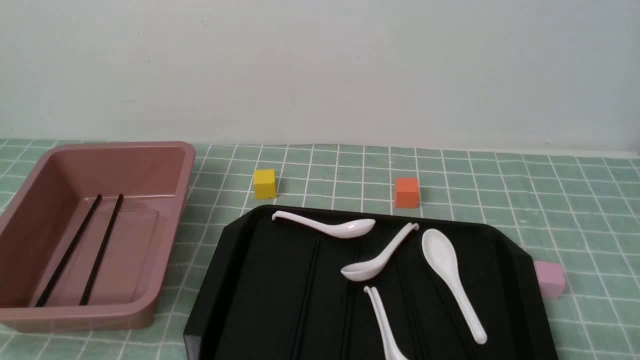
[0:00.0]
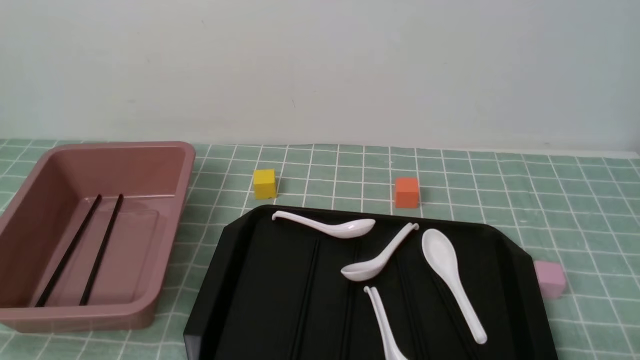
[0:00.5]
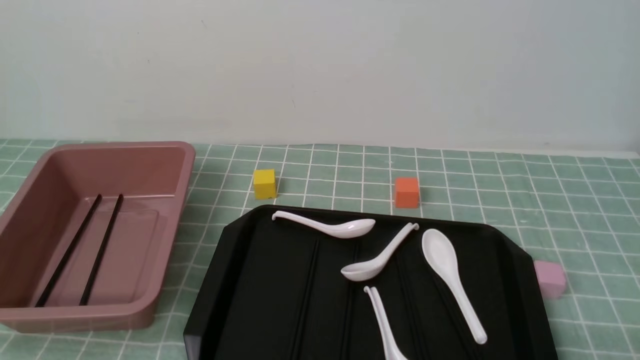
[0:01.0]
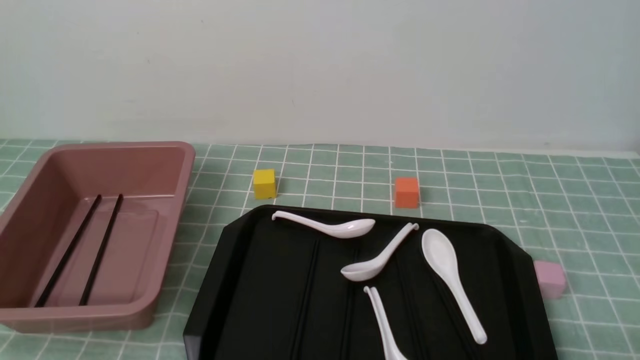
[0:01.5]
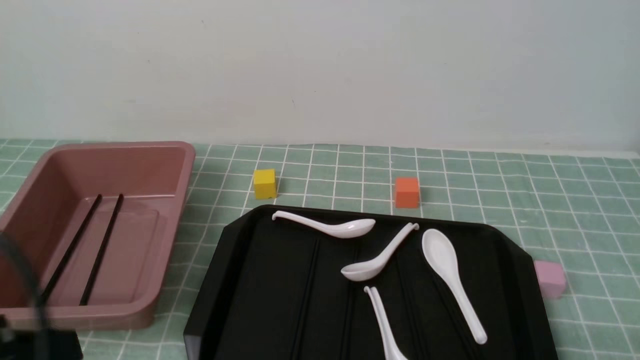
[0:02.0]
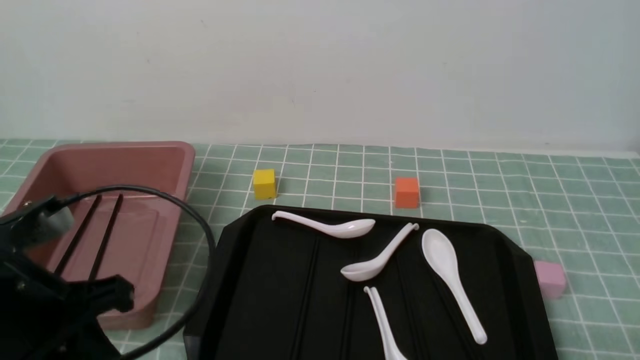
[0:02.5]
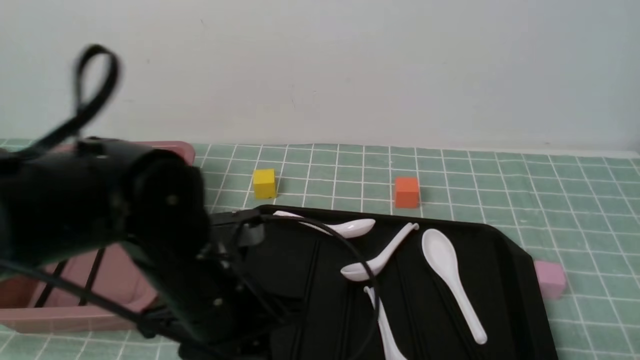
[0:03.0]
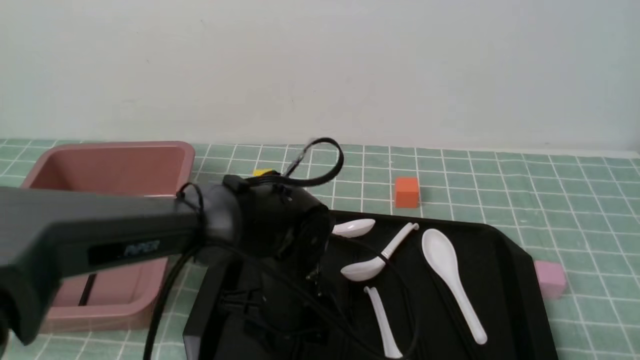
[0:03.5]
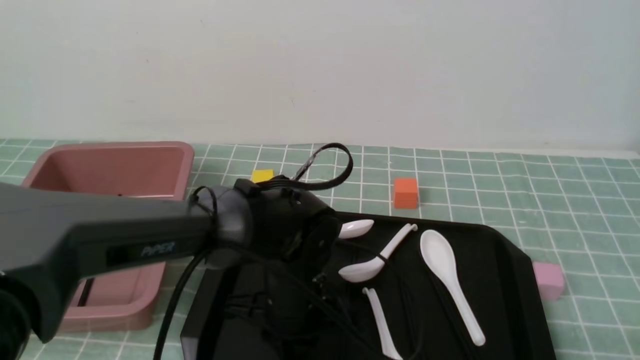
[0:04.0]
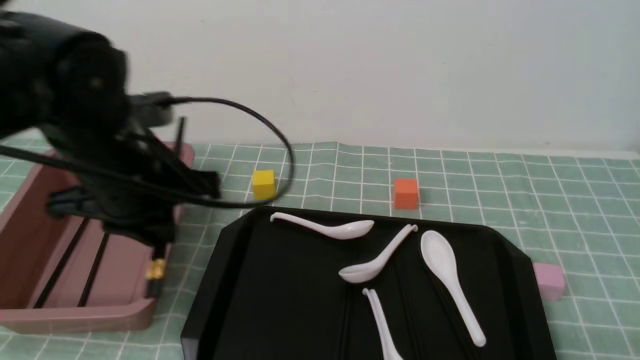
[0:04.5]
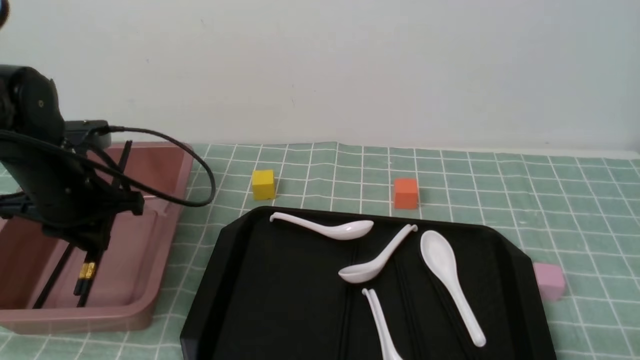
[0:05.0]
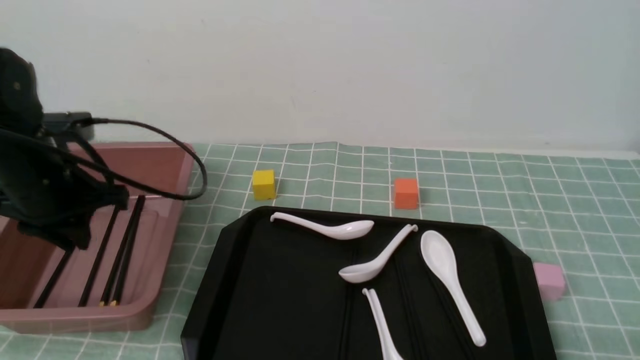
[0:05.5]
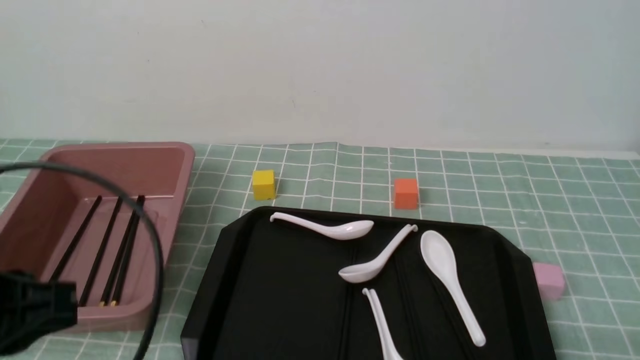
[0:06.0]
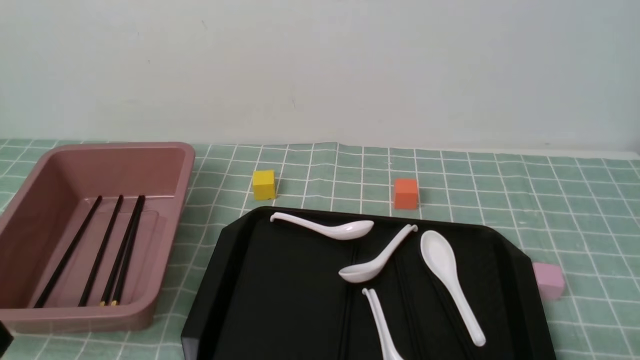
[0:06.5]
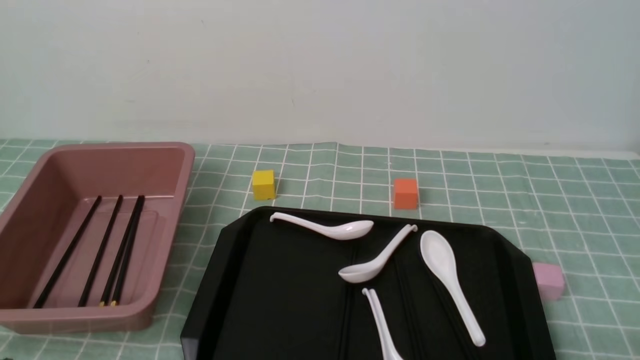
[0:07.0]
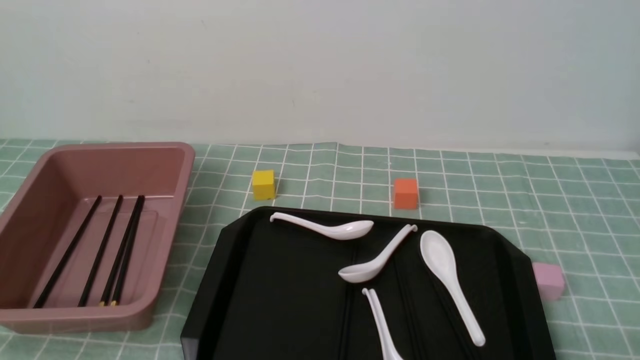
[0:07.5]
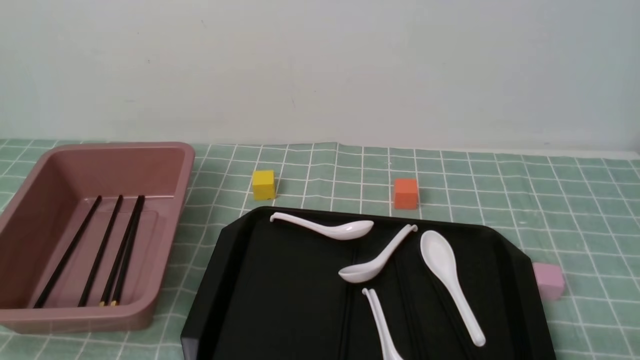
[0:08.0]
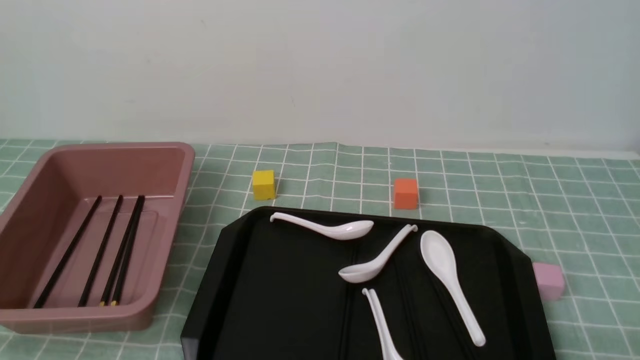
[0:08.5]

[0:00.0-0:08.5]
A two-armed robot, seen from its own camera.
Step, 0:00.0 to 0:04.0: use the left arm to grab a pair of chopsticks.
Step, 0:04.5 to 0:05.5: use the left arm to put the chopsticks into the lunch box.
0:00.0 to 0:02.0: The left gripper is displaced upward by some 15 cm.
0:02.0 to 0:04.0: The left gripper travels forward, to the right and downward by approximately 30 cm, and opens up.
0:04.0 to 0:06.5: The left gripper is displaced backward and to the left by some 30 cm, and closes up.
